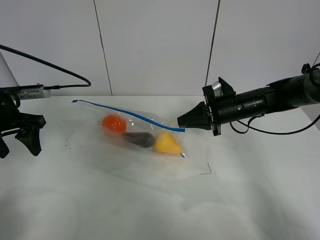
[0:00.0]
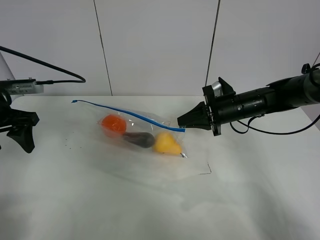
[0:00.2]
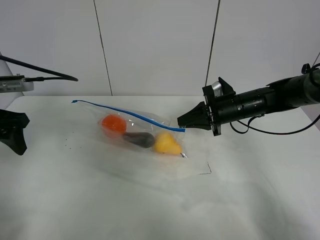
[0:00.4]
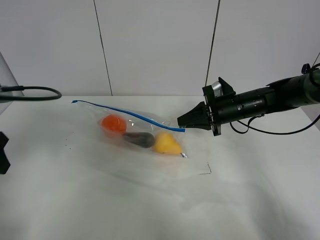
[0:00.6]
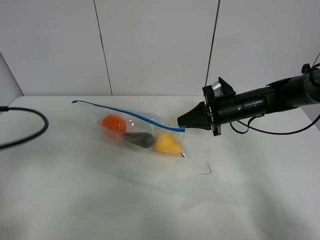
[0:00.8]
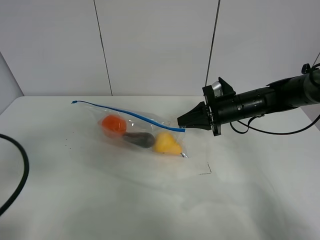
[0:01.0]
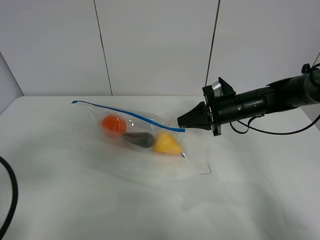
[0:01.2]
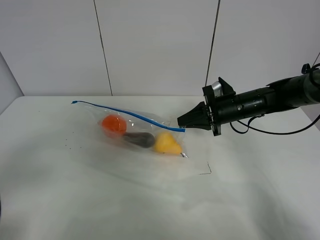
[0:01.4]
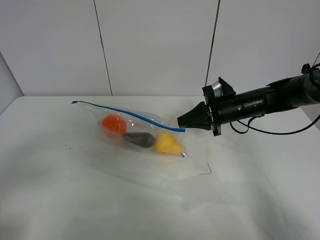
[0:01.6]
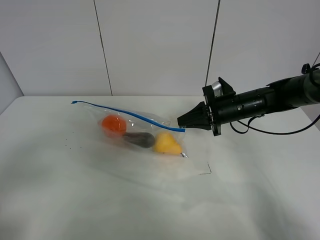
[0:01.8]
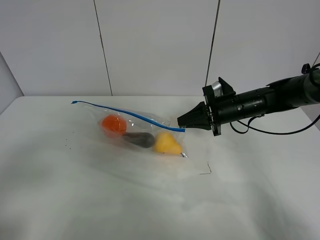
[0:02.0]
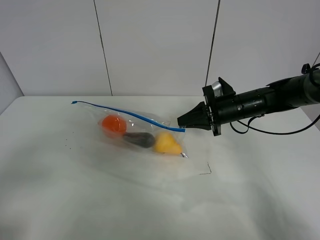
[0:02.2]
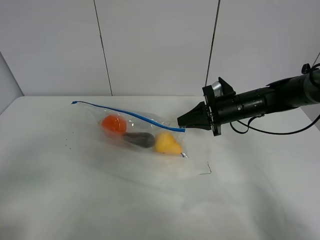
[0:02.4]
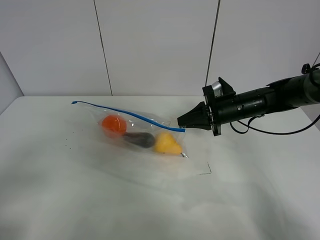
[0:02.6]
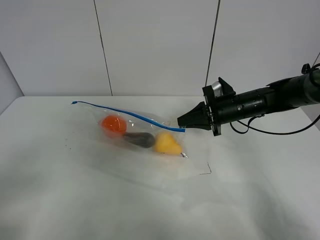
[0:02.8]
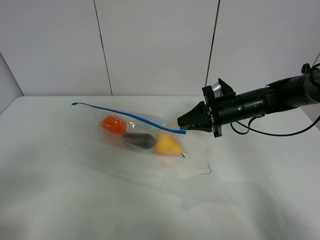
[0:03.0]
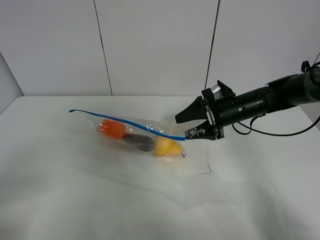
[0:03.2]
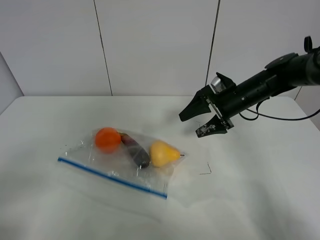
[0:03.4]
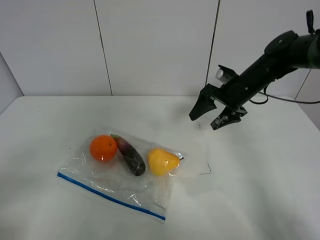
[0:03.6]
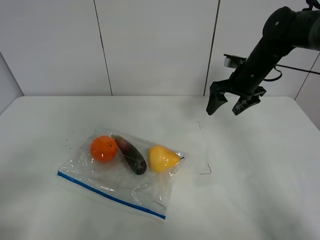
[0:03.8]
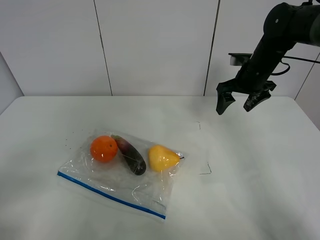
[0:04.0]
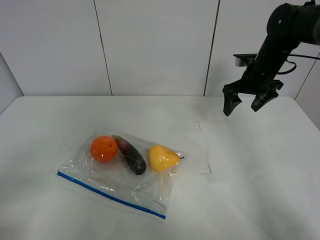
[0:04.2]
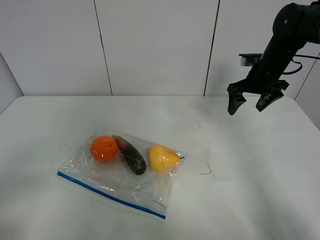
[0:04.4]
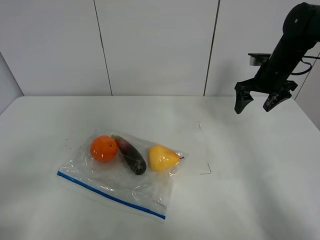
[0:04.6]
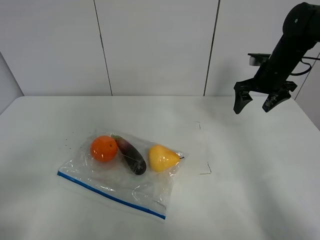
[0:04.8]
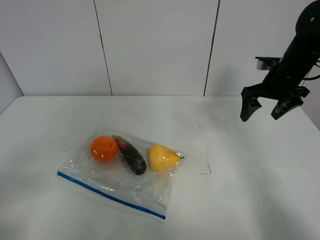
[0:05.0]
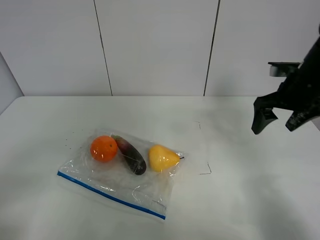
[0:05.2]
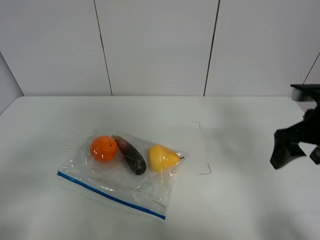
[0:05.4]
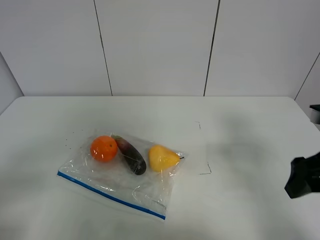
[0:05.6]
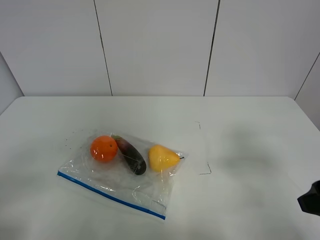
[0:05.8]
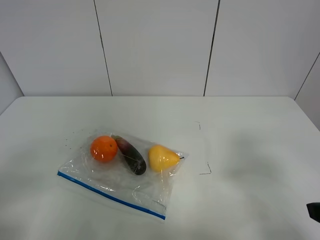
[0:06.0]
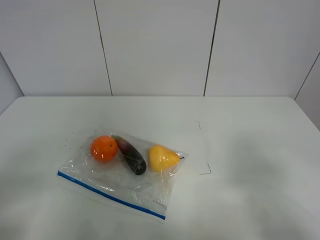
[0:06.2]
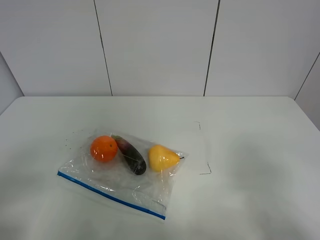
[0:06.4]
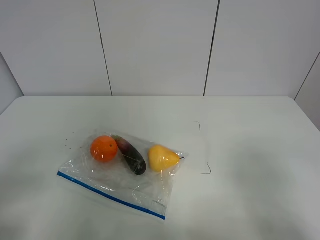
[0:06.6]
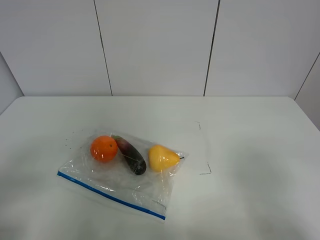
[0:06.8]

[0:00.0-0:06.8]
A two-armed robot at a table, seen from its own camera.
0:00.0 to 0:01.4: The left gripper travels backward by approximately 25 cm.
0:02.8 to 0:04.0: The right gripper is displaced upward and forward by approximately 10 cm, and opens up.
0:04.0 to 0:05.4: The right gripper shifts roughly 20 cm backward.
0:05.4 to 0:06.8: The right gripper moves backward, some 20 cm.
